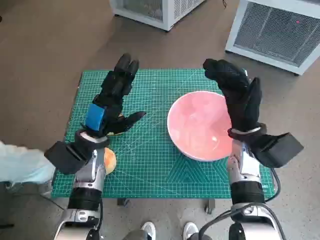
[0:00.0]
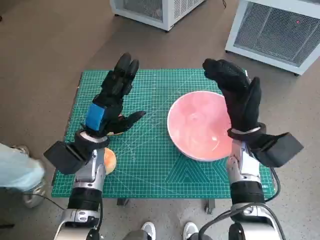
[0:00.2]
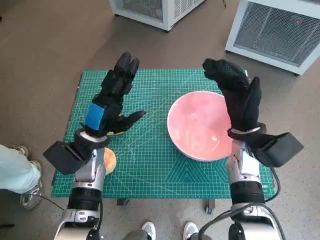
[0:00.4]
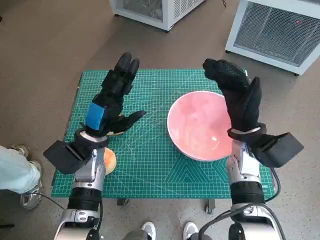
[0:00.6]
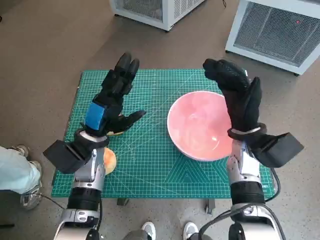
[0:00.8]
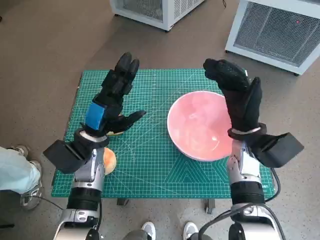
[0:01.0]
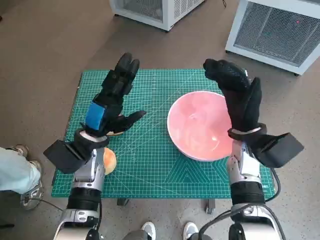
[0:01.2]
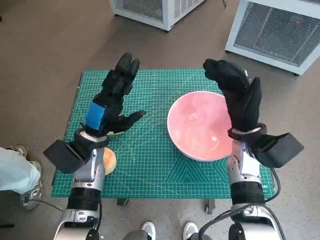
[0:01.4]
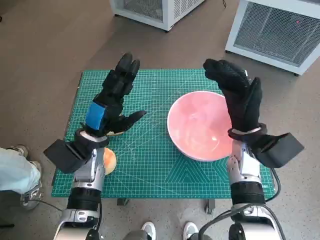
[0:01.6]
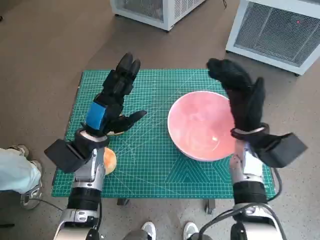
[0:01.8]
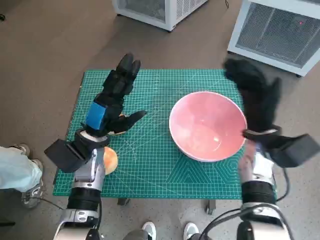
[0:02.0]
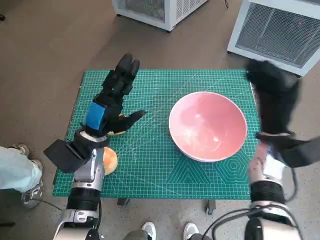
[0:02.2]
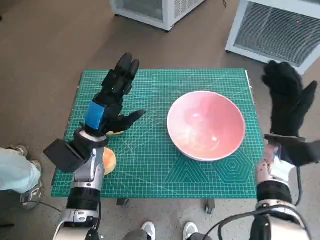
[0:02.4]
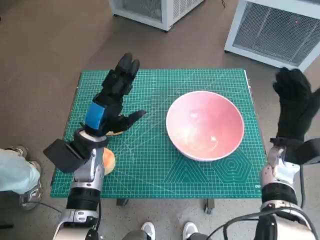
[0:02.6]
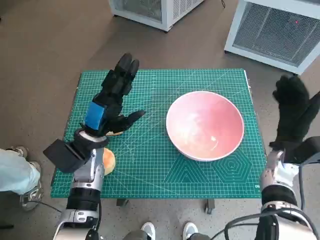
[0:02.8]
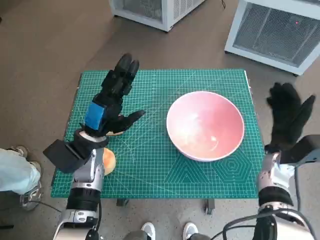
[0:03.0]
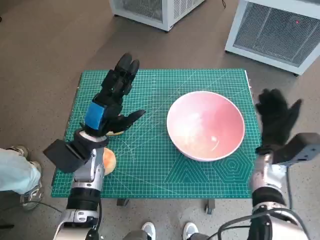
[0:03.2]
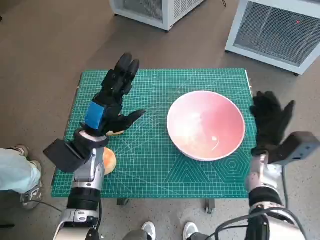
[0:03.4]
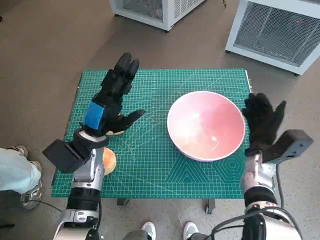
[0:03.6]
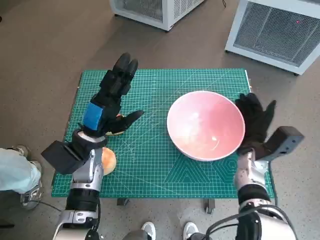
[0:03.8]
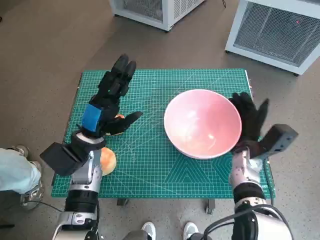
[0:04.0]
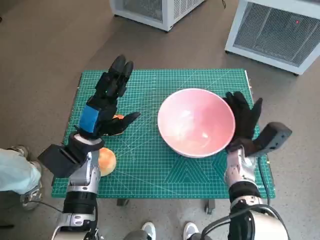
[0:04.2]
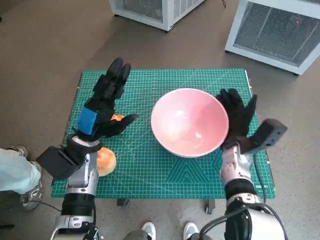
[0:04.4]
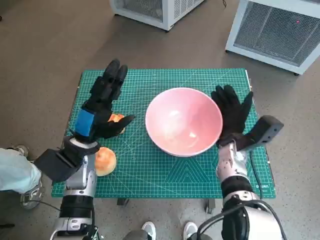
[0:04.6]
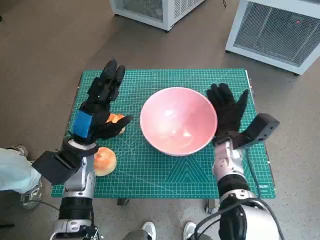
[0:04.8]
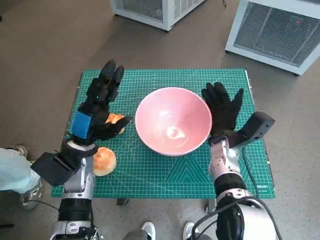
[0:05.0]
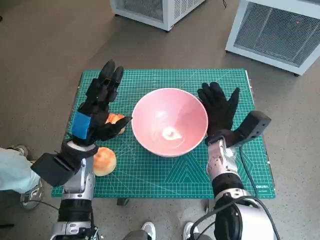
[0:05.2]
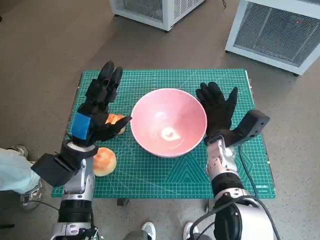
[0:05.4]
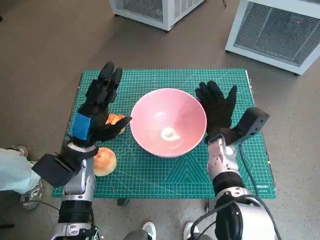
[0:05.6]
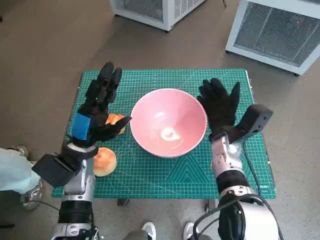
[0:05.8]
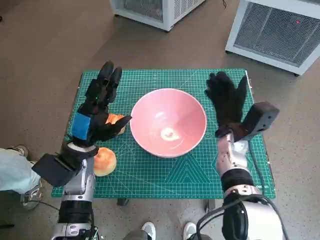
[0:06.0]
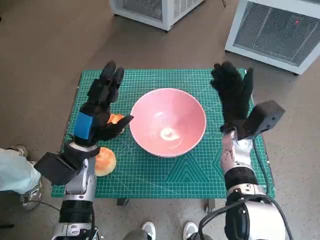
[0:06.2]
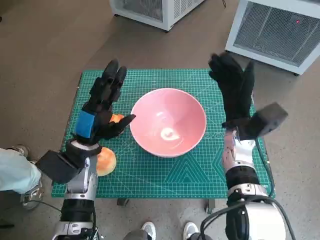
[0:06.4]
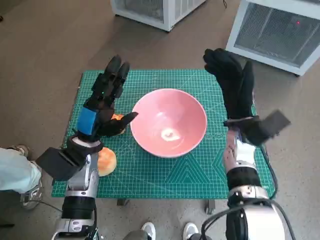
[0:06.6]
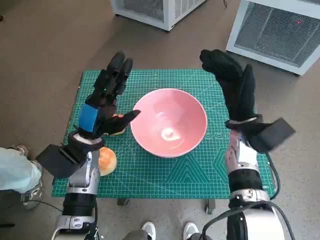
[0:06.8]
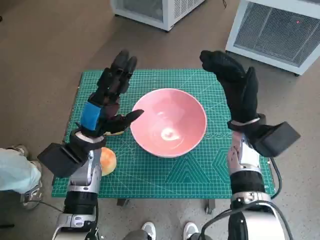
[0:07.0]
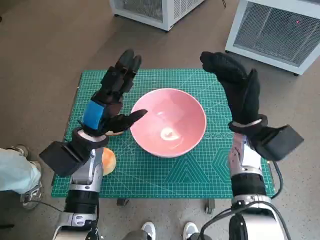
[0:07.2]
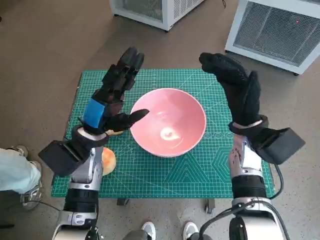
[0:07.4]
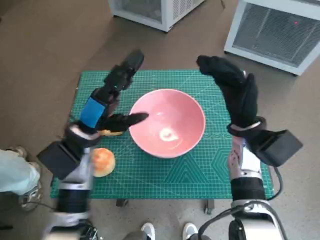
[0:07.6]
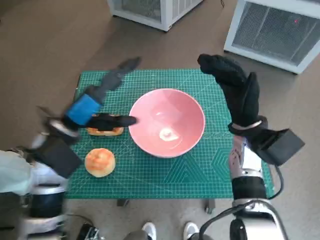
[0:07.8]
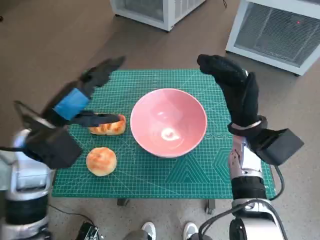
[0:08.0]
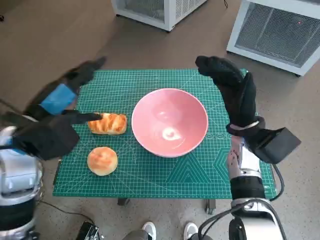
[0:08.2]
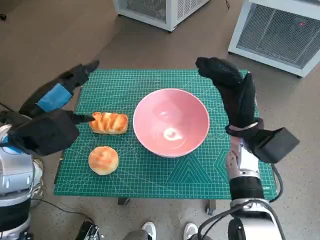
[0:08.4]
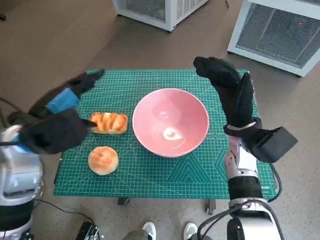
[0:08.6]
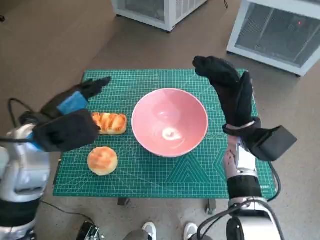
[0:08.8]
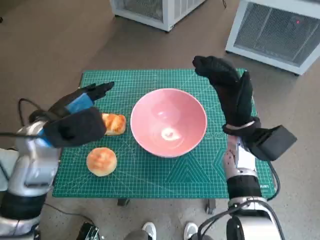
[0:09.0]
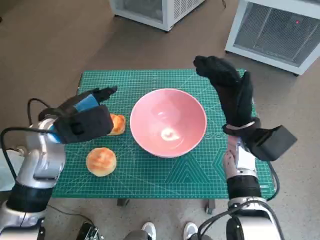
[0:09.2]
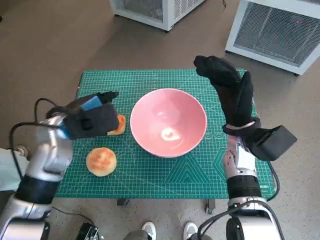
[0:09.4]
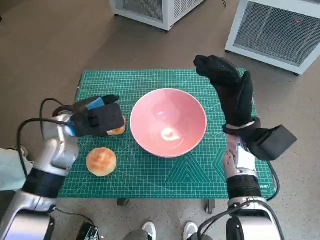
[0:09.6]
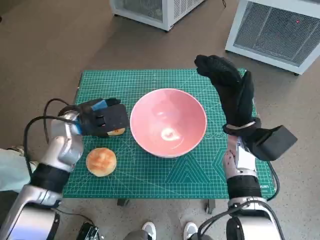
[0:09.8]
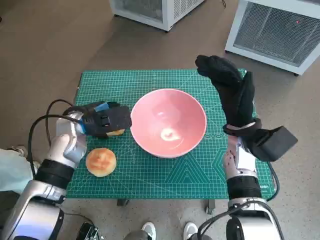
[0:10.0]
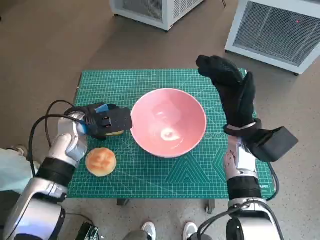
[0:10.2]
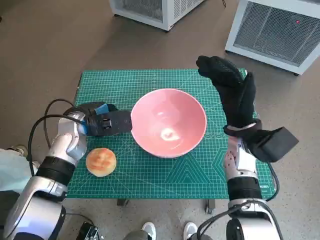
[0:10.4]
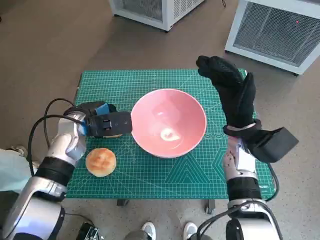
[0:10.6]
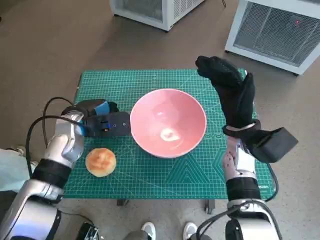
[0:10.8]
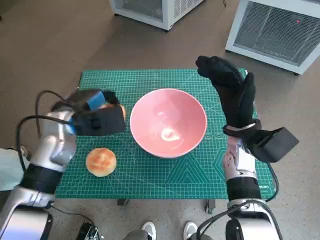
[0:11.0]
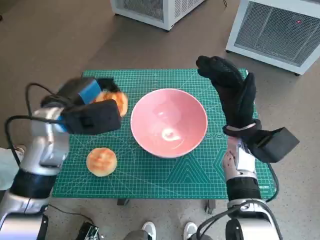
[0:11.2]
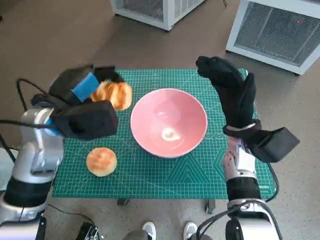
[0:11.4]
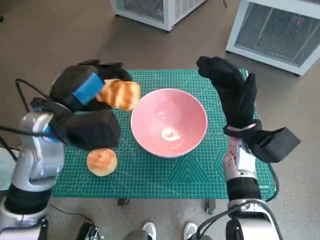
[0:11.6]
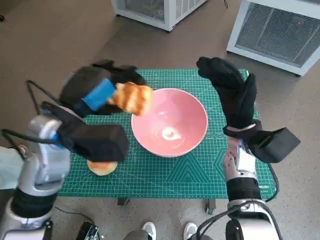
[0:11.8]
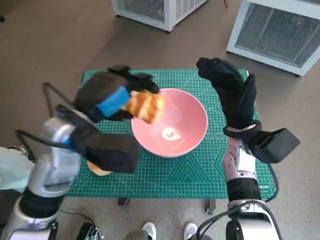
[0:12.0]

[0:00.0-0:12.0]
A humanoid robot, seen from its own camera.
Task of the whole recording: Push the bowl into the center of the table and put the bread into the bowl.
Step, 0.0 to 5.8 s: Move the pink bowl to the center of table with right hand.
Step, 6.0 to 10.4 s: Grasp the long bread with left hand.
1.6 to 3.0 s: The right hand shifts about 10 cm to the right and downward.
3.0 to 4.4 s: The right hand goes about 10 cm to the left.
6.0 to 7.6 s: The right hand travels upward by some 5 cm.
7.6 to 9.0 s: The left hand goes approximately 5 cm upward.
9.0 to 10.4 s: The left hand moves downward and forward, about 10 cm.
10.4 to 12.0 s: The left hand shifts some 15 cm upward and backward.

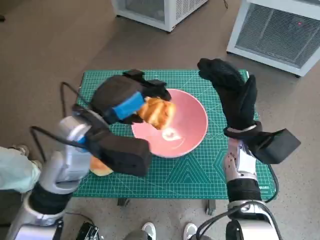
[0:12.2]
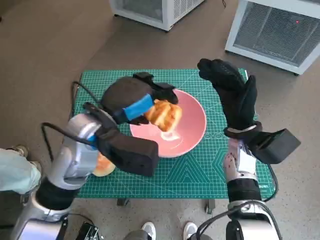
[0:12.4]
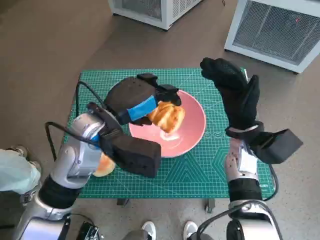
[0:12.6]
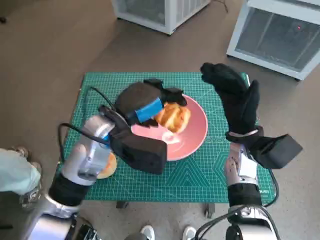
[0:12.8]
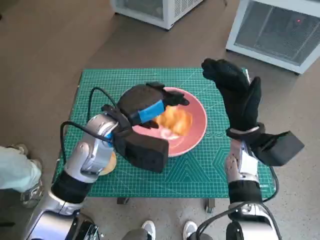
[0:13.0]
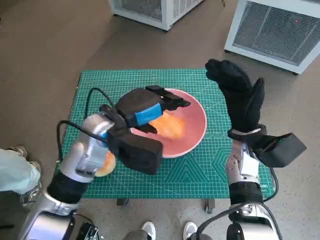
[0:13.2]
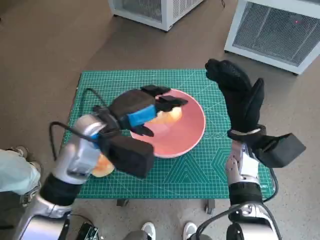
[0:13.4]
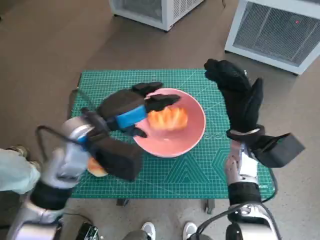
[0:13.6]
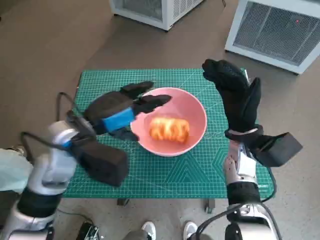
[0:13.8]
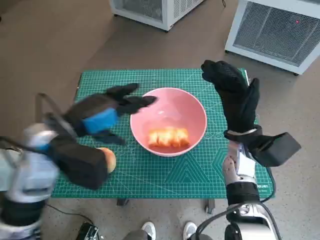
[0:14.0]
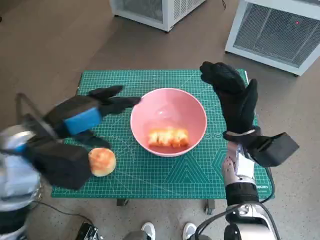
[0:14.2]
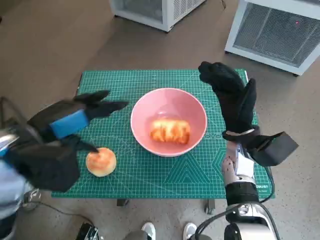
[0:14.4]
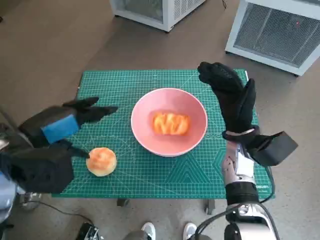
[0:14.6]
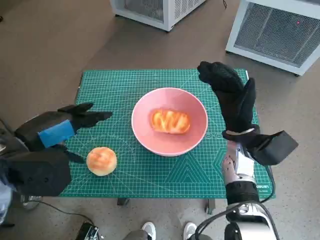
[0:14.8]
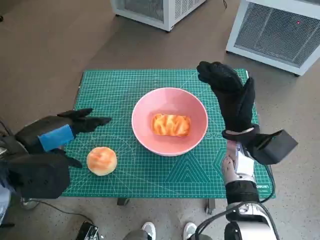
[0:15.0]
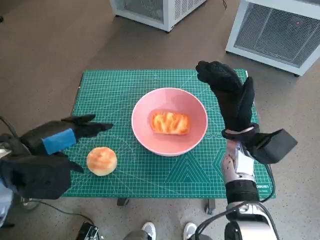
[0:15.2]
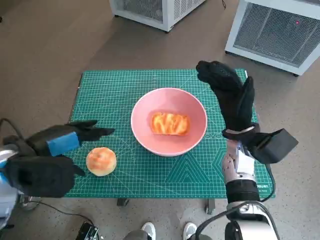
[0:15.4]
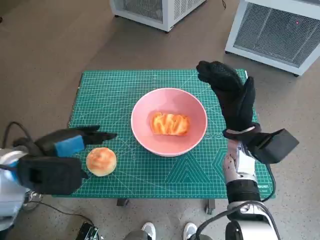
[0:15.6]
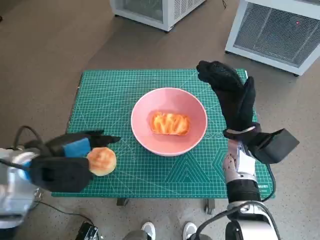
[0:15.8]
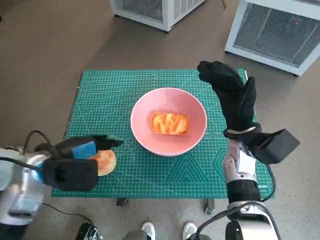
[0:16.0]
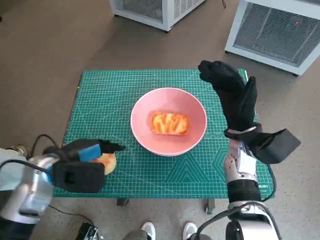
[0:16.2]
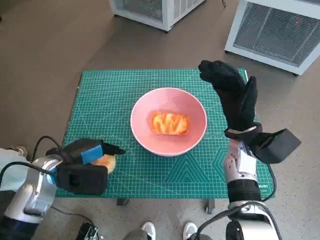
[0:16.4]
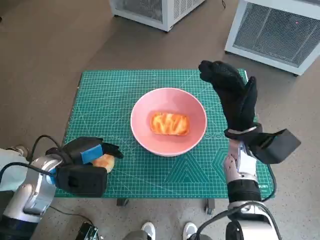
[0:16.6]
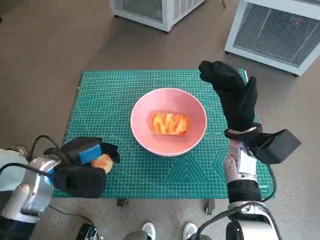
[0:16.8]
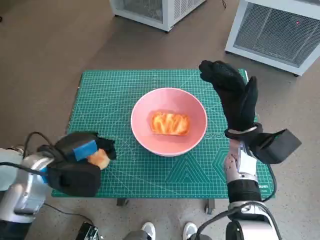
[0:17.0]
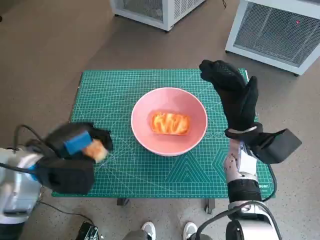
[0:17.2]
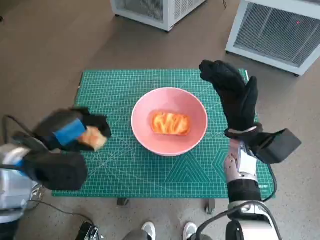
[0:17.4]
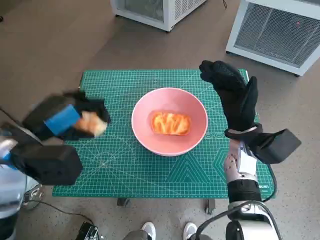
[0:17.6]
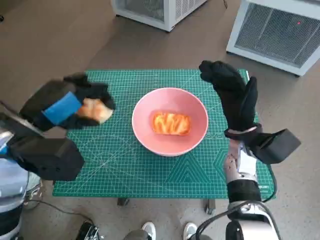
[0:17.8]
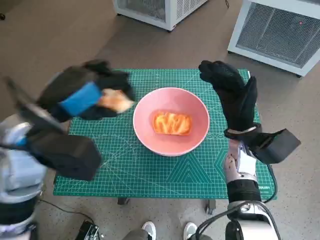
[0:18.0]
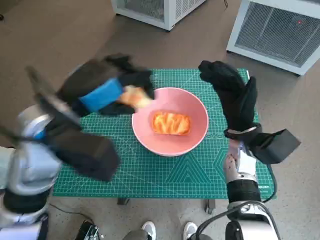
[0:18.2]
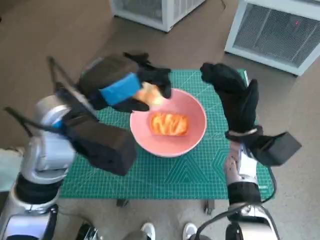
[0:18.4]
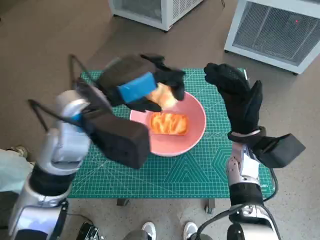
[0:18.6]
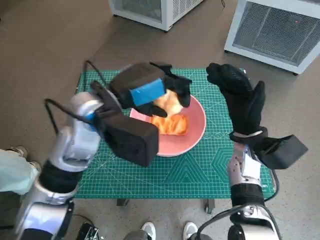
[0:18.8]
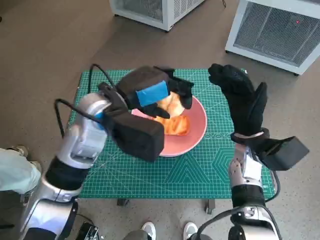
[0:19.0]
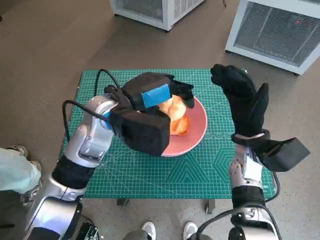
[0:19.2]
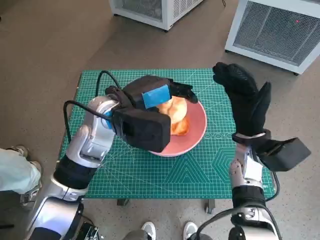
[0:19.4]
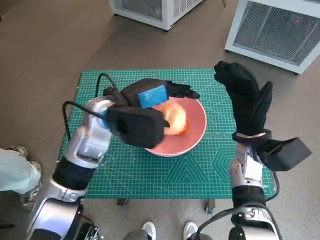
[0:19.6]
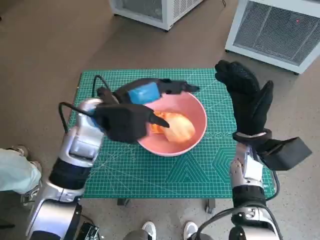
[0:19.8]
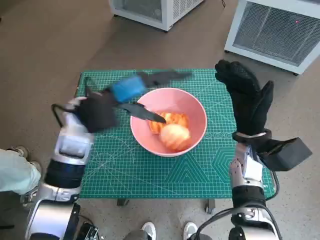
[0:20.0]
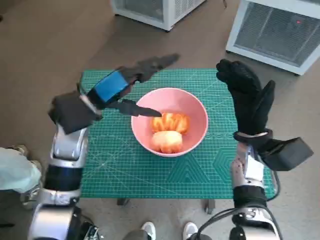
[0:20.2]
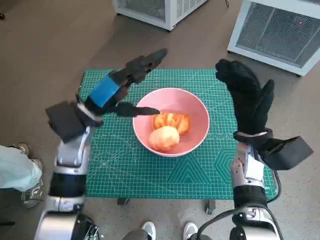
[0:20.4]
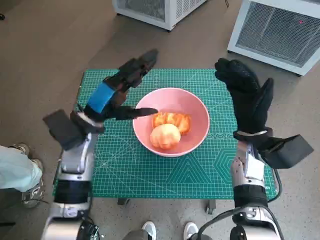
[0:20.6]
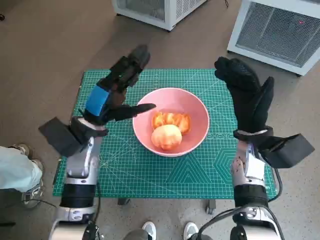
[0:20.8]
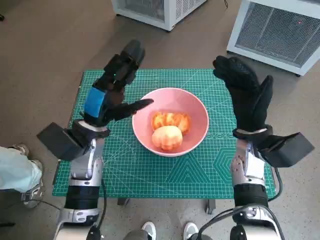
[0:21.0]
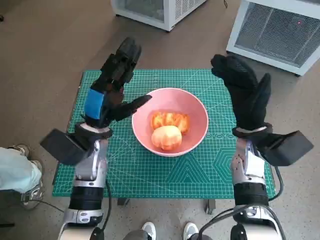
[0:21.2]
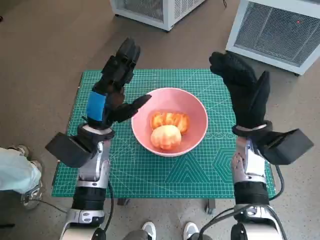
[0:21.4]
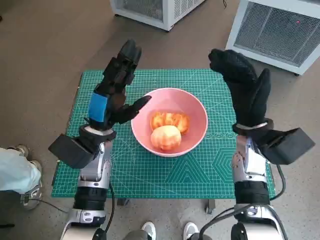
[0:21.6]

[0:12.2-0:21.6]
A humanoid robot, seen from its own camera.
Task of the whole recording: Push the bowl into the center of the table and put the bread into the bowl.
Step, 13.6 to 16.4 s: Grasp the round bread with left hand.
Step, 16.6 to 19.6 s: Place the round bread in pink bowl with left hand.
13.8 to 15.4 s: The left hand is displaced to the left and backward by roughly 10 cm.
15.4 to 17.0 s: The left hand shifts roughly 10 cm downward.
17.0 to 18.4 s: The left hand is displaced upward and to the right by roughly 15 cm.
18.4 to 20.0 s: The left hand heads downward and forward, covering roughly 10 cm.
20.0 to 21.6 s: The left hand shifts about 10 cm downward.

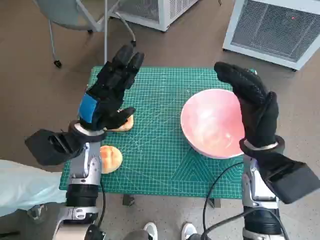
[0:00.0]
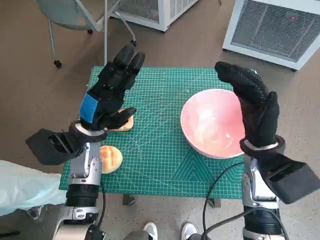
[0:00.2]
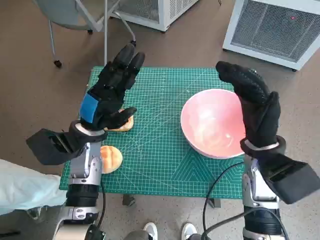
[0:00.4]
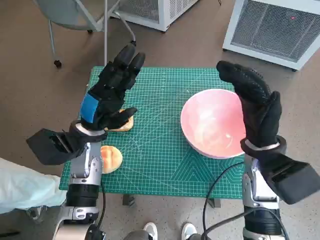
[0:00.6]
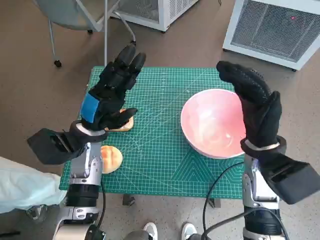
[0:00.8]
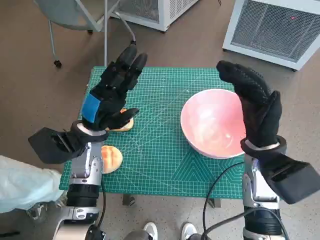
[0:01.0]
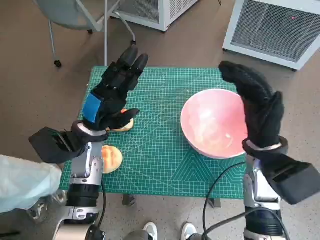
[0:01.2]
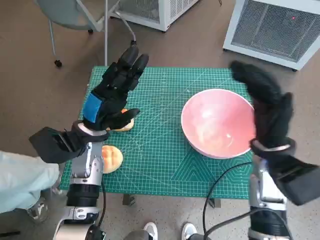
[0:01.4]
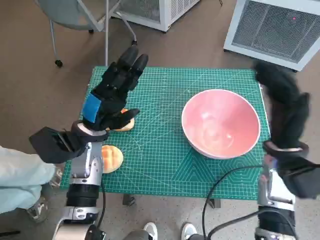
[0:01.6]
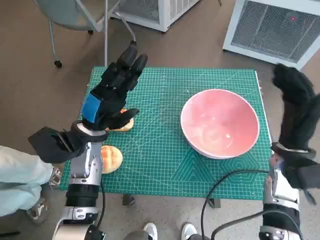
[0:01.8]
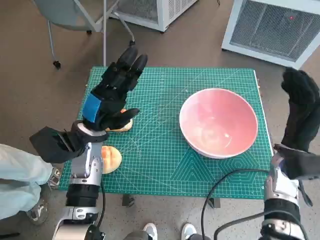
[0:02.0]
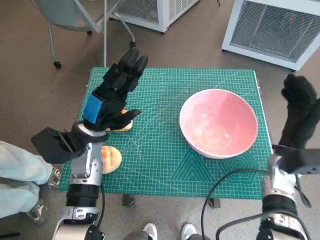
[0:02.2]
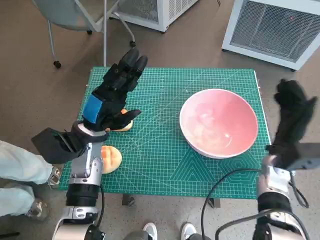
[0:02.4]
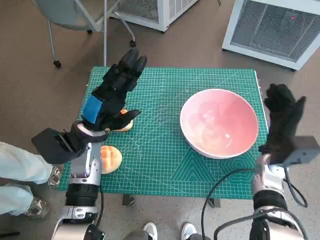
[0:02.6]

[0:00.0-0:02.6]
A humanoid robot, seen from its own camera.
Task of the whole recording: Push the bowl into the center of the table and put the bread into the bowl.
1.2 to 2.6 s: The right hand goes about 10 cm downward and to the right.
